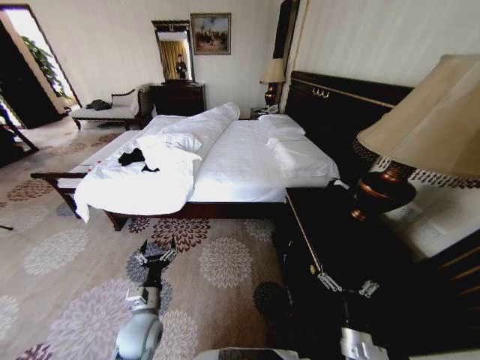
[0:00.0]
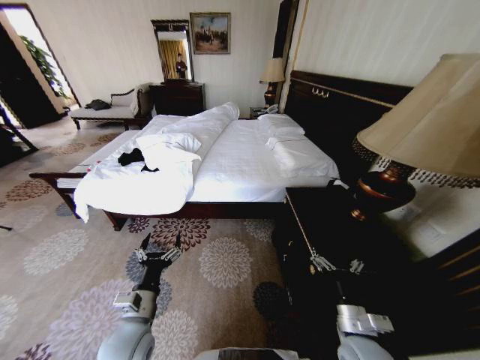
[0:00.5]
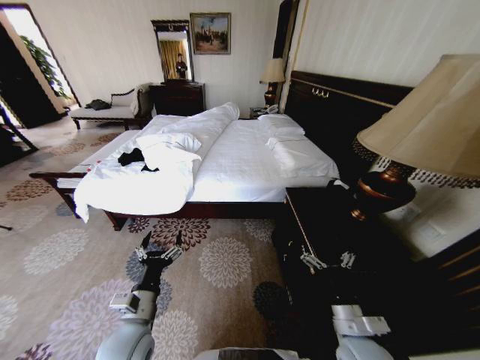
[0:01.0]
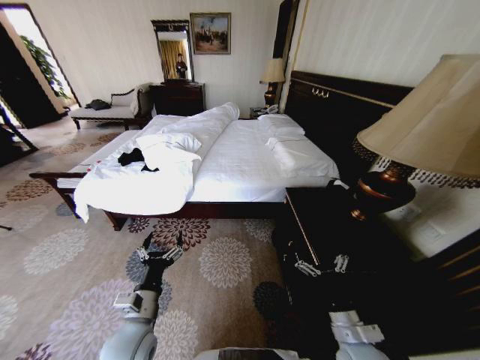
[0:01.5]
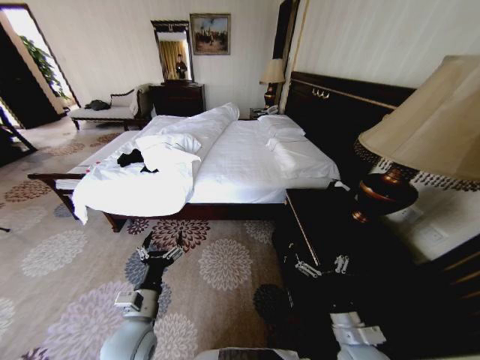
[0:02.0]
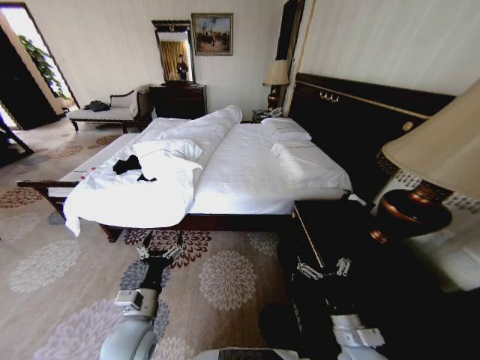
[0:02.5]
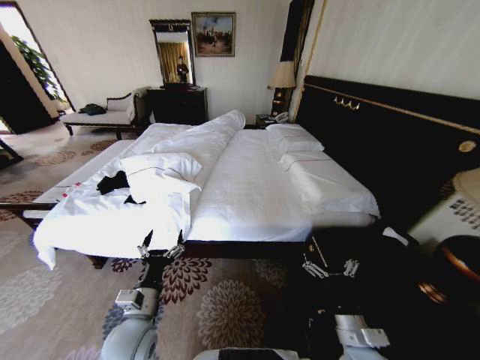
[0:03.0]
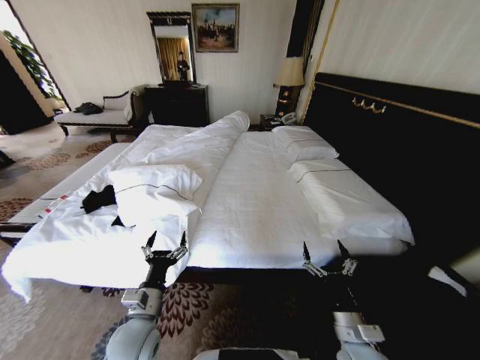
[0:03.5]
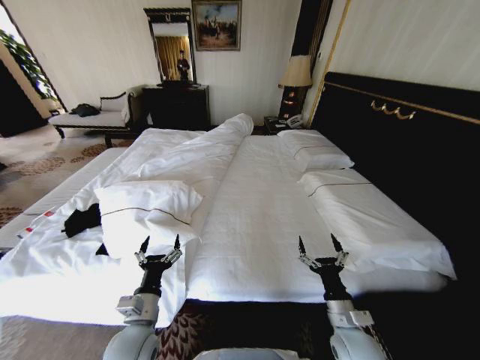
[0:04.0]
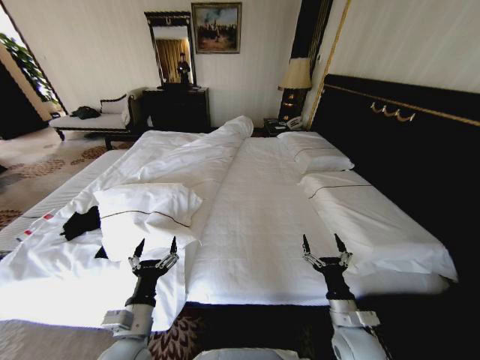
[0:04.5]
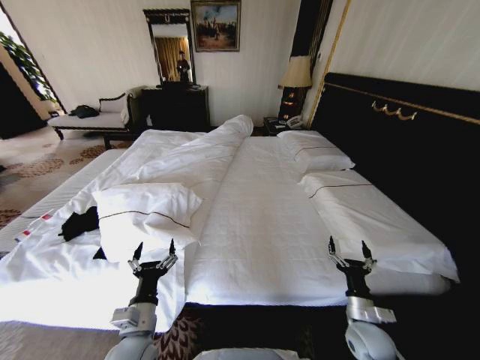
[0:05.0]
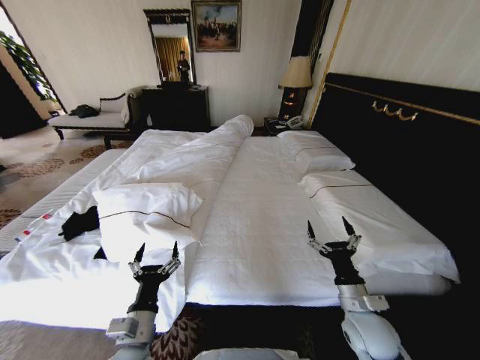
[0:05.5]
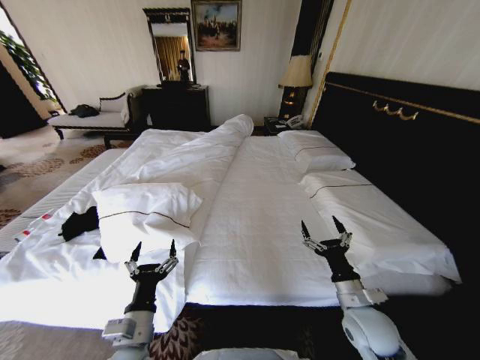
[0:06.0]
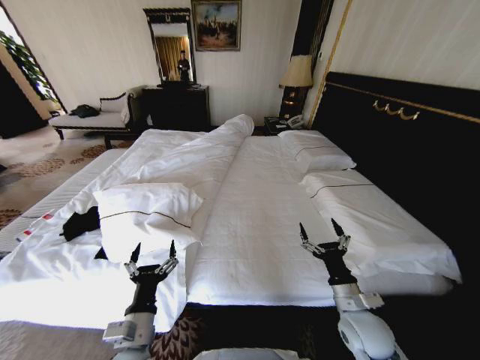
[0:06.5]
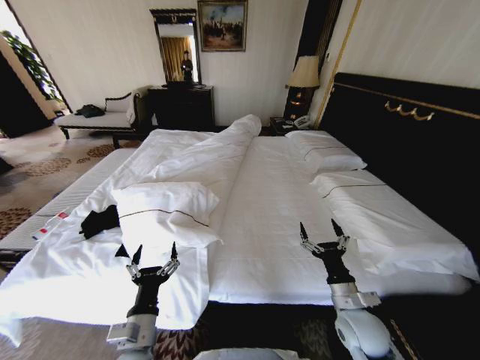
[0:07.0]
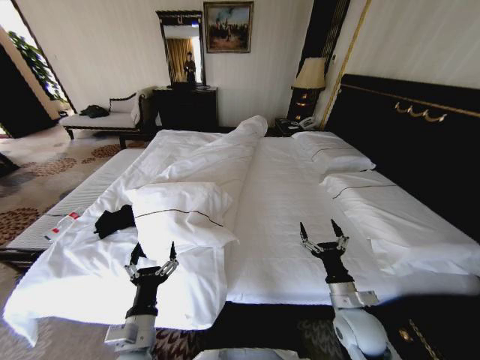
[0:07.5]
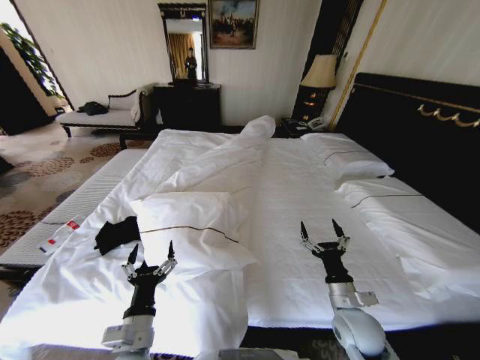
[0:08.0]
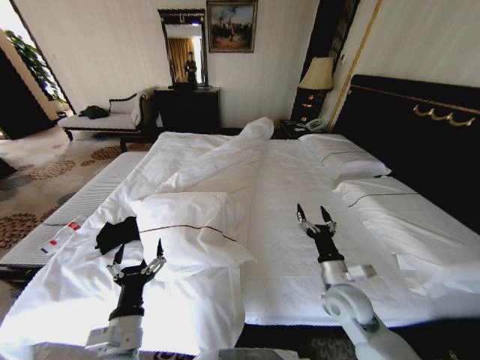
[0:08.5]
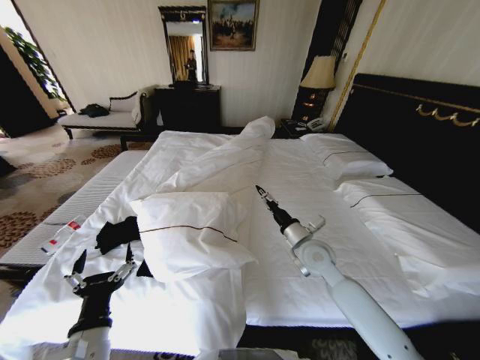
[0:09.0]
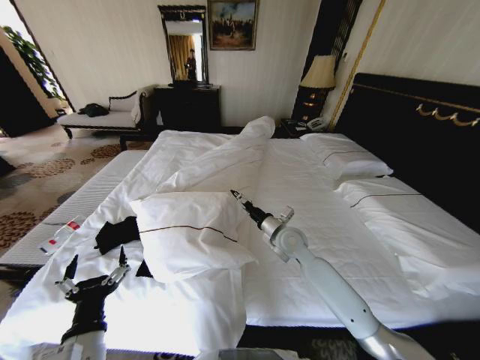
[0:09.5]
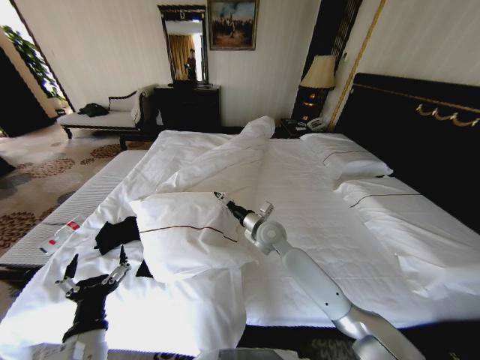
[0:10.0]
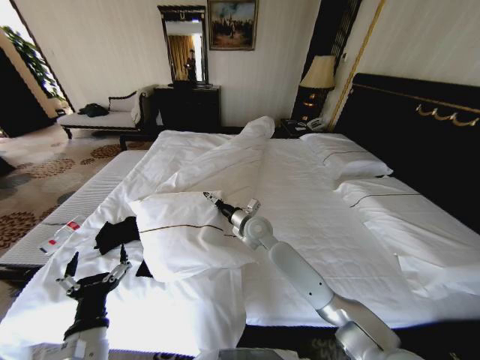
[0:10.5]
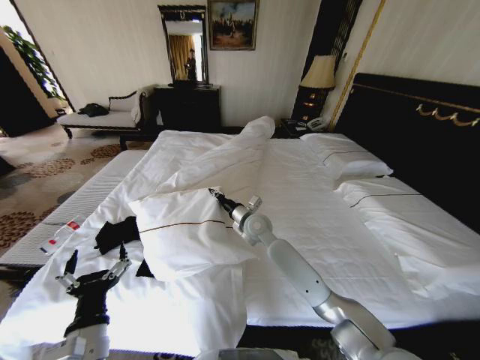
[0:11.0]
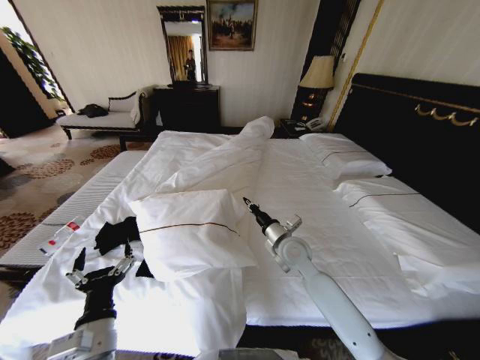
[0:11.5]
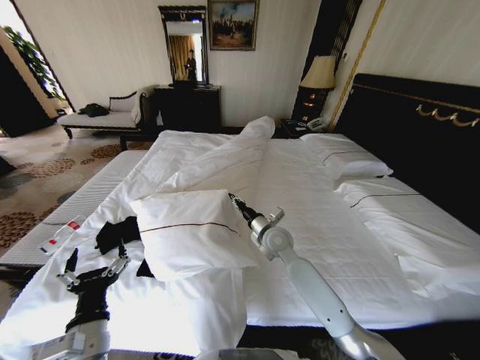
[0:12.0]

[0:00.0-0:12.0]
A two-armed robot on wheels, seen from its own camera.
Task of the whole recording: Fold the clothes on the bed.
0:04.0 to 0:06.0: The right gripper shifts by some 5 cm.
0:08.0 to 0:10.0: The right gripper shifts about 30 cm forward and to the left; the left gripper is displaced to the left by about 5 cm.
0:10.0 to 0:12.0: The right gripper swings left and right, roughly 10 cm each way, with 2 reversals, and closes up.

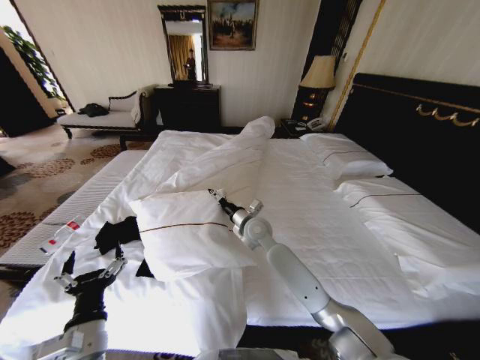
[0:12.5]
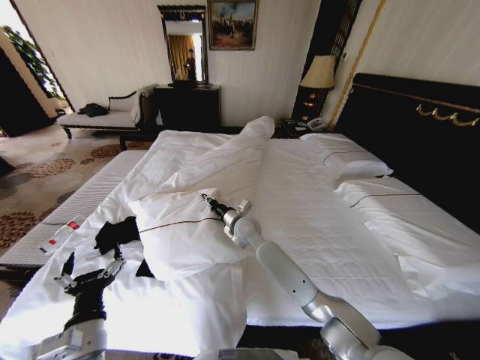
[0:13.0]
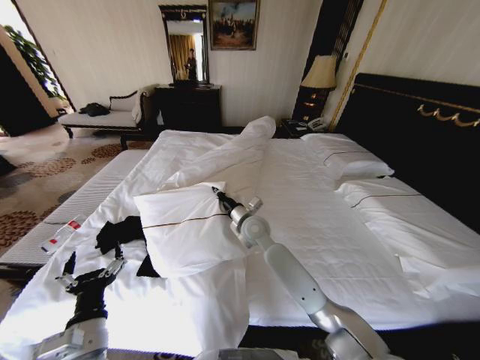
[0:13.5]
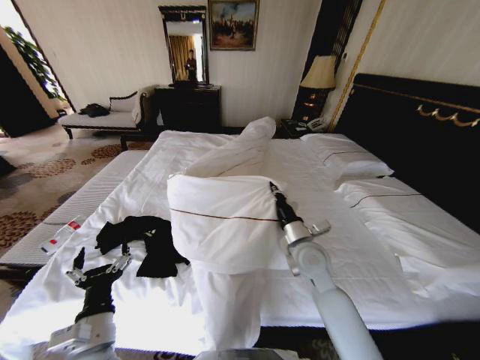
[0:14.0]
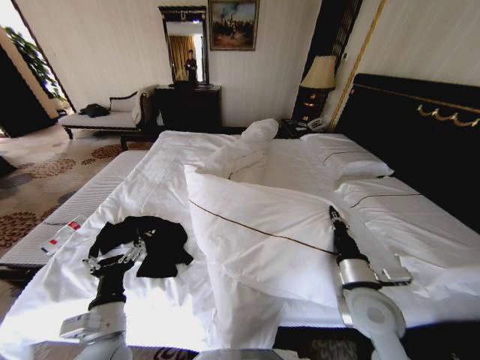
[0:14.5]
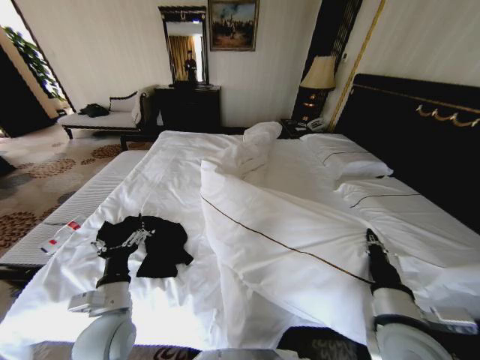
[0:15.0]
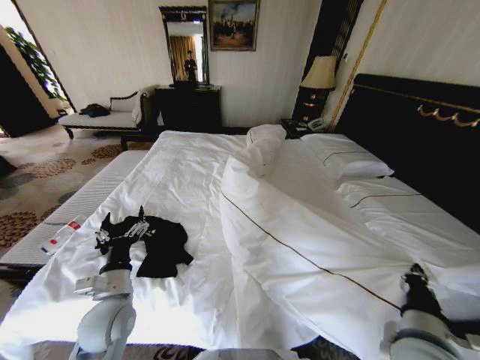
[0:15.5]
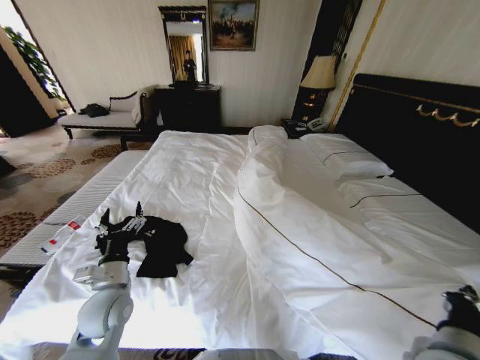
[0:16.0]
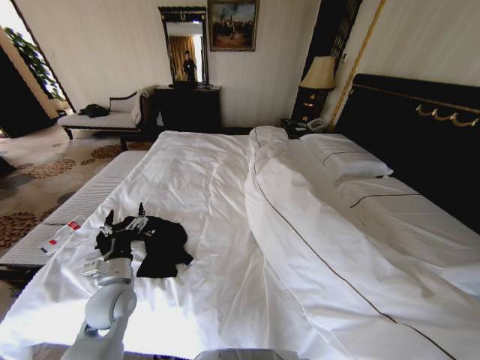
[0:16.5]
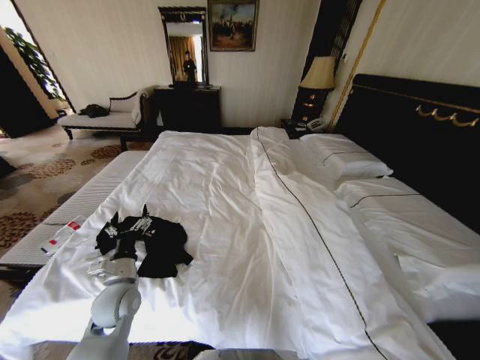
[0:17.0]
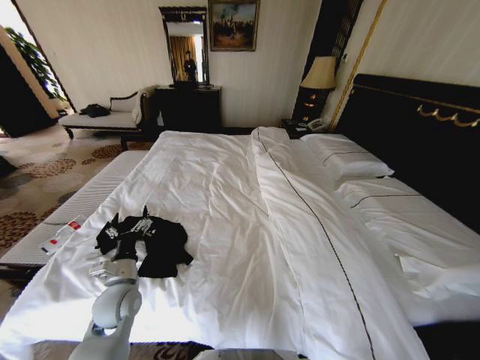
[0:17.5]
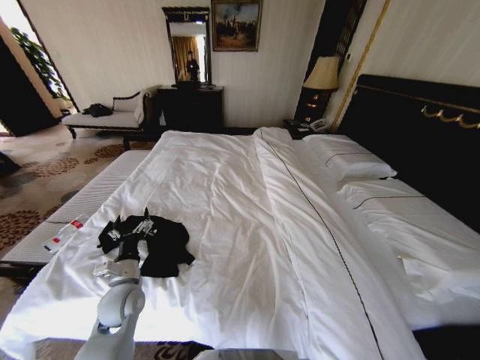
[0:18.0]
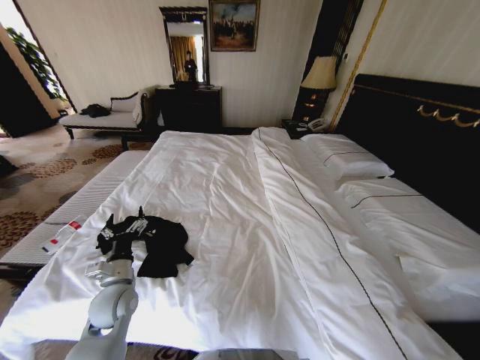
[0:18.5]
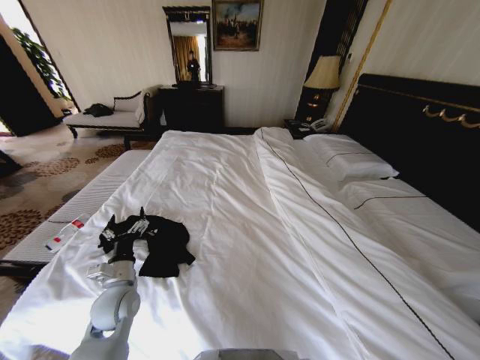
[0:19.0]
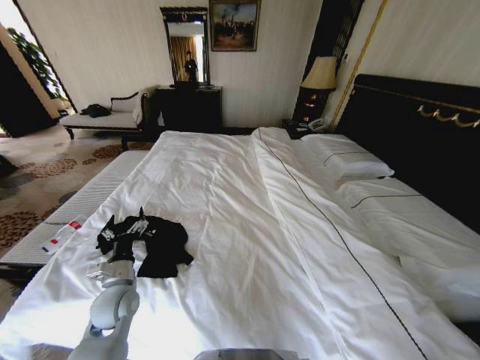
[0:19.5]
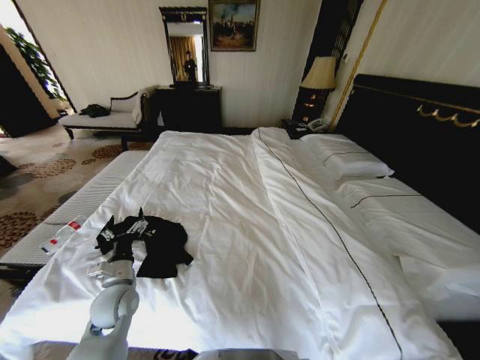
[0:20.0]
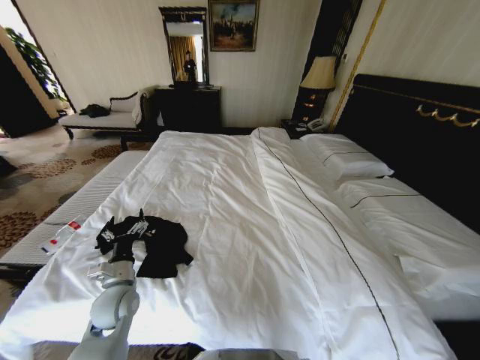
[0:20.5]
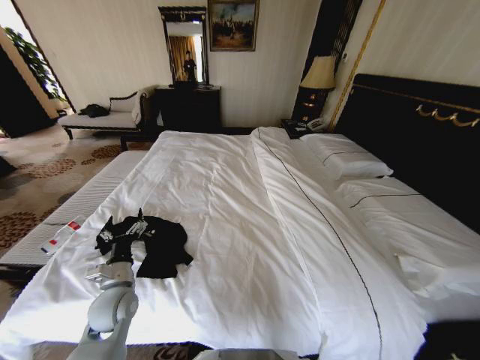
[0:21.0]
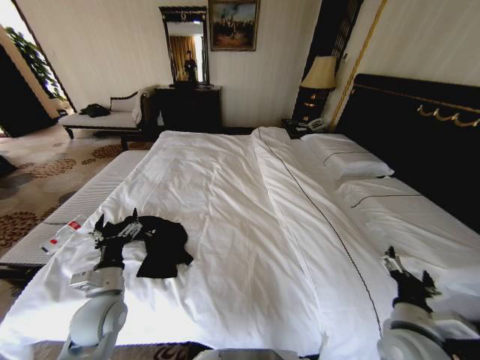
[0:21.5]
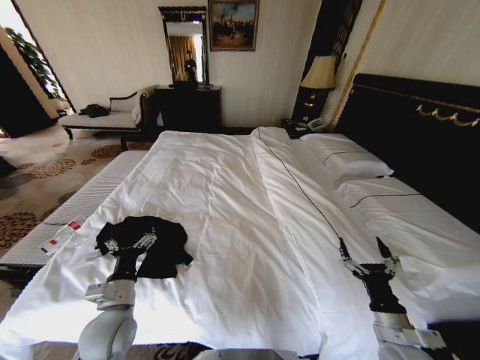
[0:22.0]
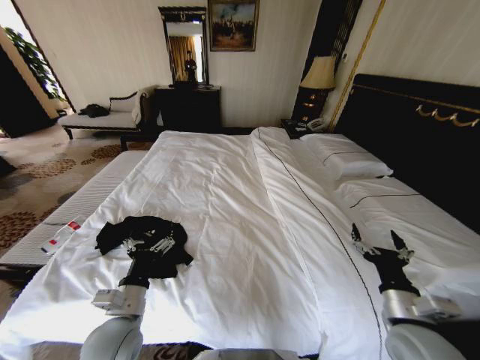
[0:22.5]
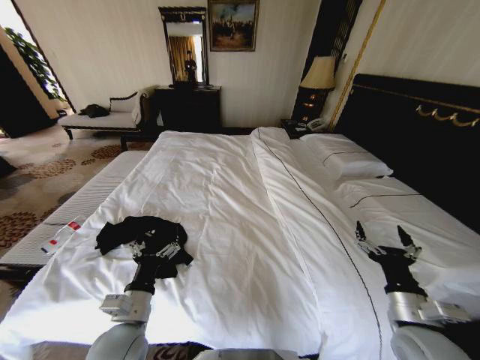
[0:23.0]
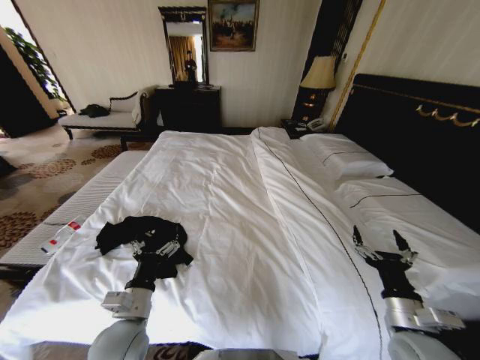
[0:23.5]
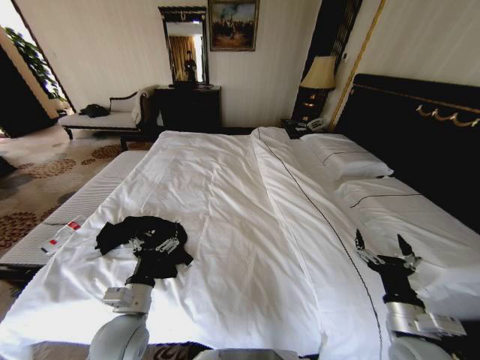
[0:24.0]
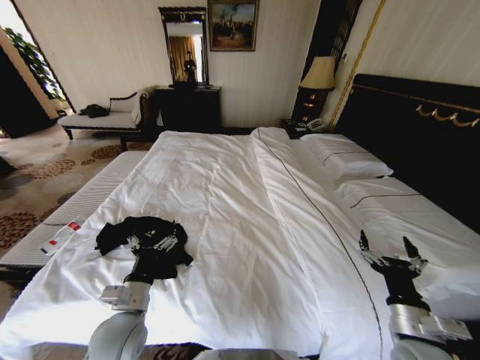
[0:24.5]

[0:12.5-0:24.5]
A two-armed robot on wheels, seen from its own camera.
Task of the whole recording: Fold the clothes on the bed.
0:12.5 to 0:14.5: The right gripper is displaced backward and to the right by some 30 cm, and closes.
0:14.5 to 0:16.5: The right gripper heads backward and to the right, covering some 20 cm, while the left gripper shifts some 10 cm forward.
0:16.5 to 0:18.5: The right gripper is displaced downward and backward by about 20 cm.
0:18.5 to 0:20.5: The right gripper travels upward and forward by some 25 cm, and opens.
0:20.5 to 0:22.5: The right gripper travels forward by some 10 cm, and goes downward and returns, some 10 cm each way, while the left gripper is displaced backward and to the right by roughly 10 cm.
0:22.5 to 0:24.5: There are only small adjustments of the grippers.

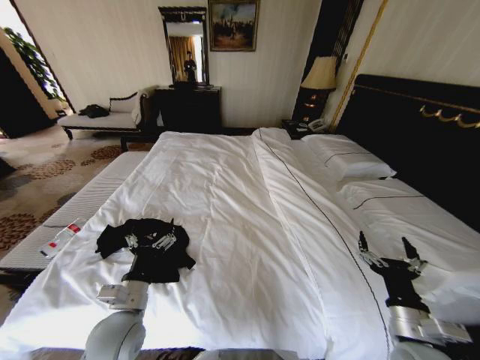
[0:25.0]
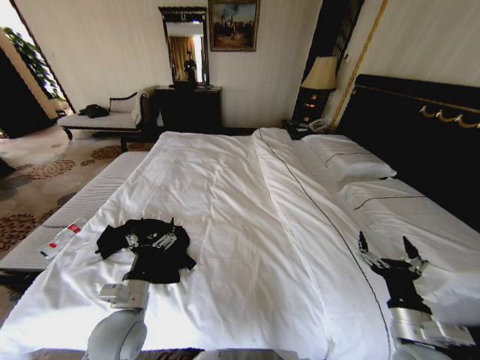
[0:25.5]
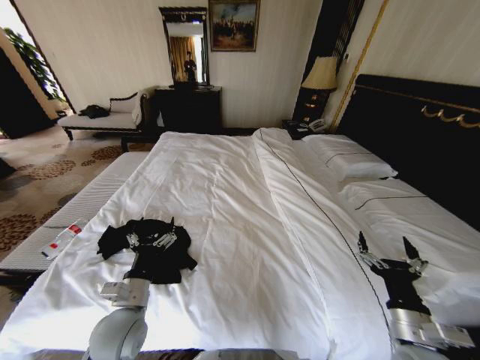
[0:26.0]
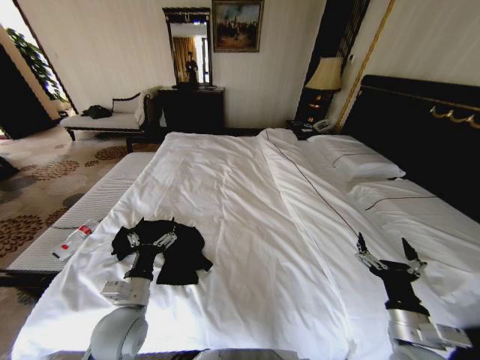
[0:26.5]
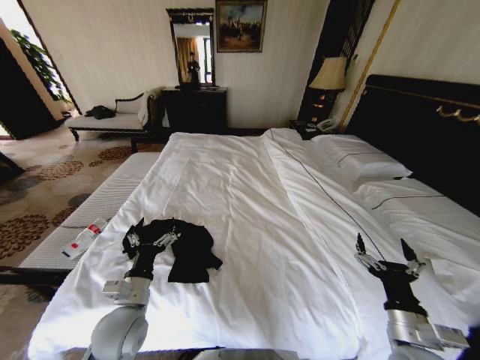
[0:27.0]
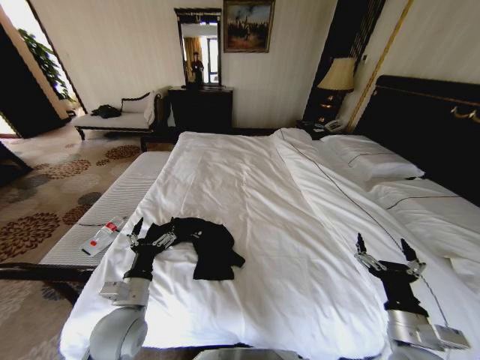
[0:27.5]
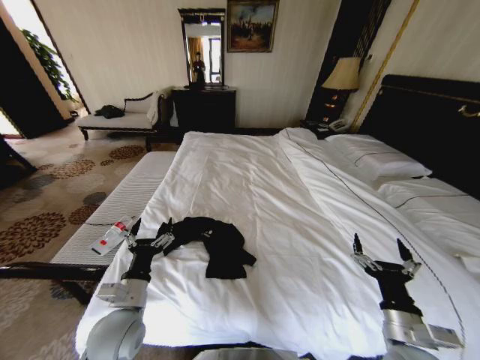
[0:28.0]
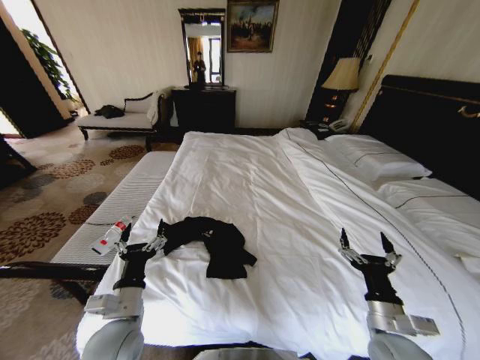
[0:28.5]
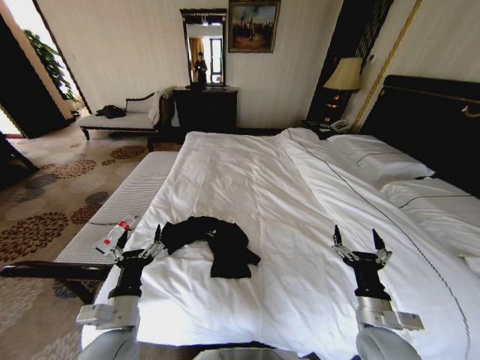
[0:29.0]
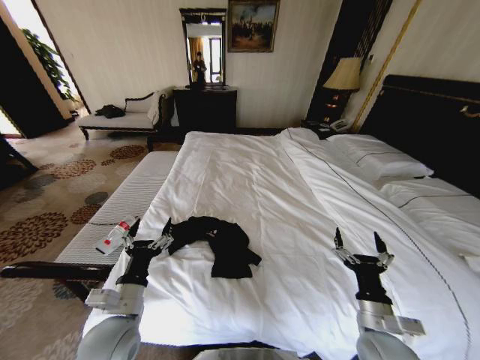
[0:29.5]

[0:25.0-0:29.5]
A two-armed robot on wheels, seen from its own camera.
Task of the whole recording: Fold the clothes on the bed.
0:27.0 to 0:29.5: The right gripper shifts by about 5 cm.
